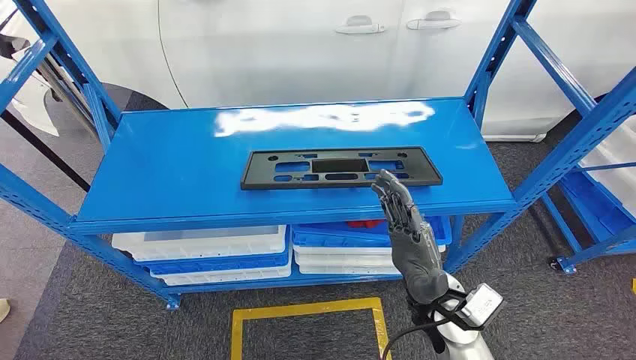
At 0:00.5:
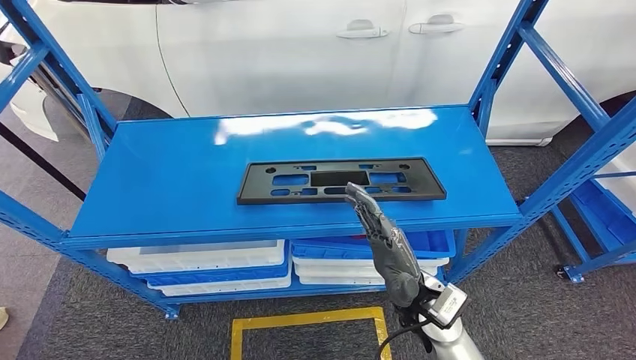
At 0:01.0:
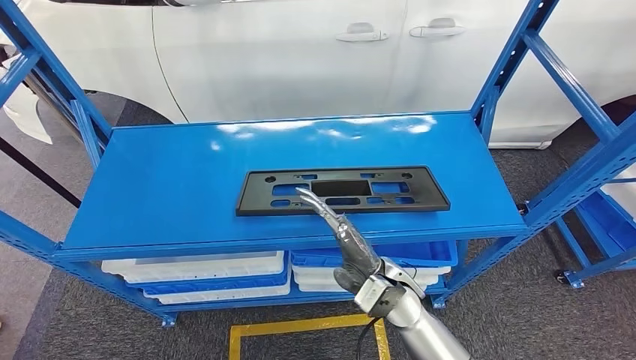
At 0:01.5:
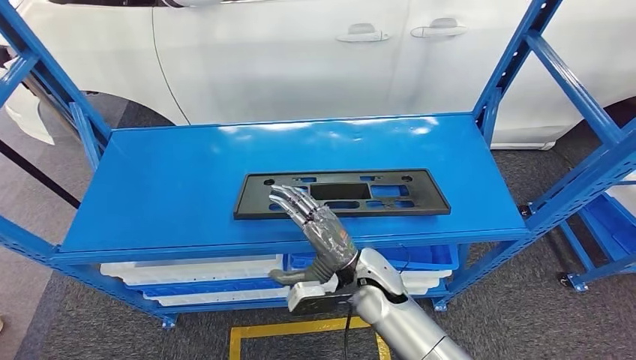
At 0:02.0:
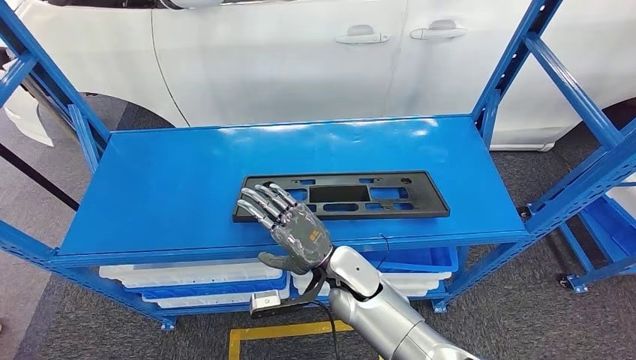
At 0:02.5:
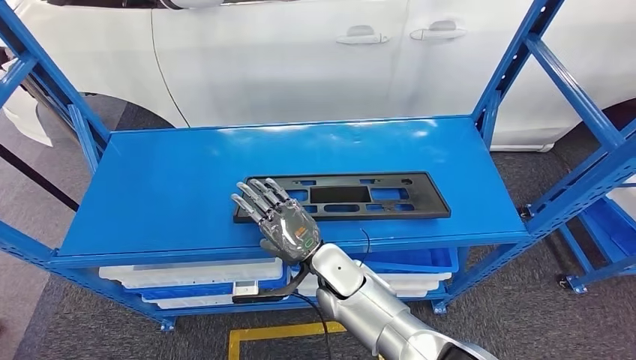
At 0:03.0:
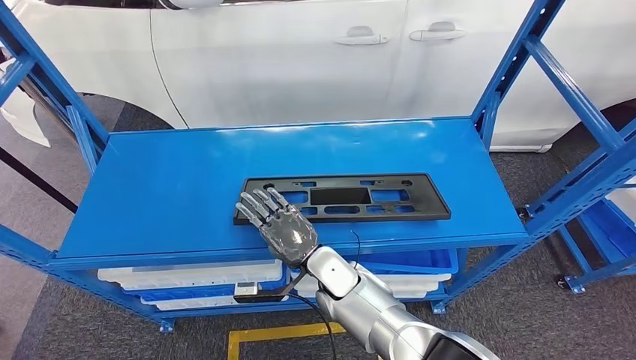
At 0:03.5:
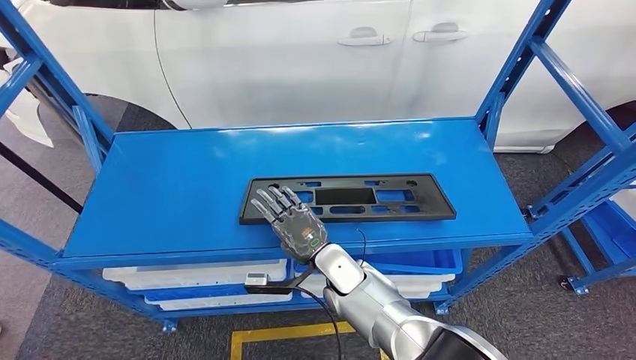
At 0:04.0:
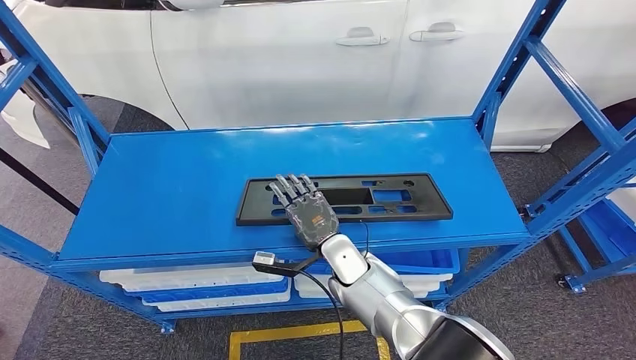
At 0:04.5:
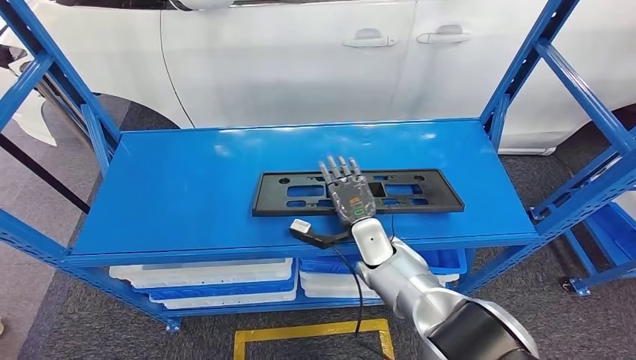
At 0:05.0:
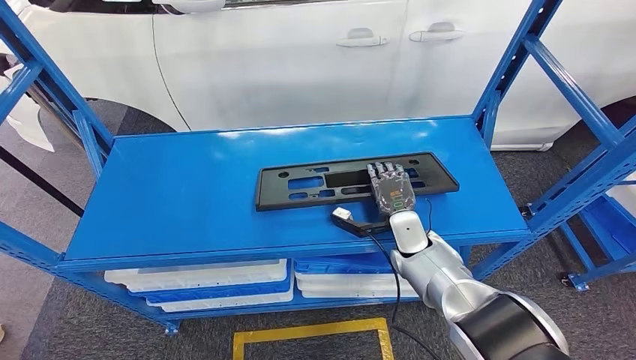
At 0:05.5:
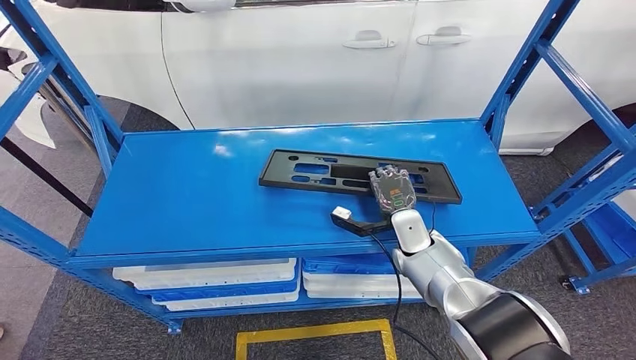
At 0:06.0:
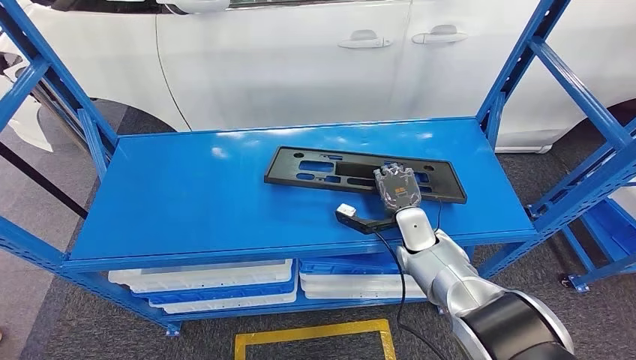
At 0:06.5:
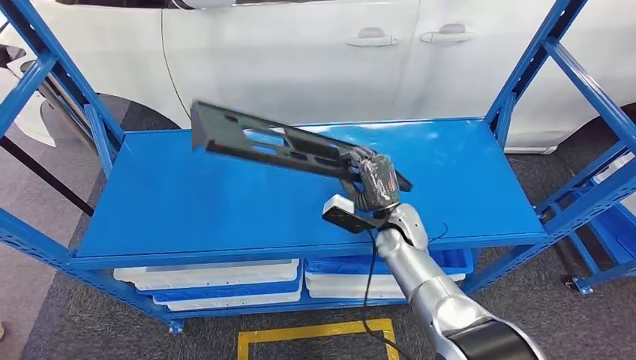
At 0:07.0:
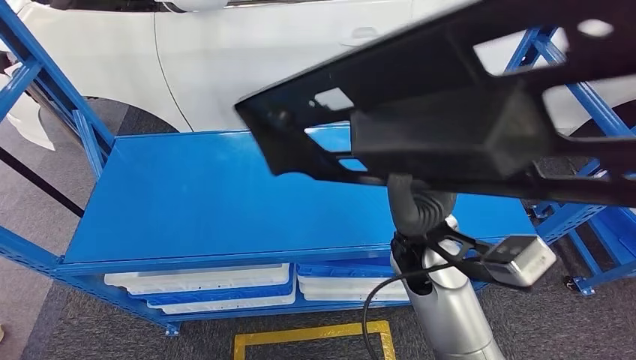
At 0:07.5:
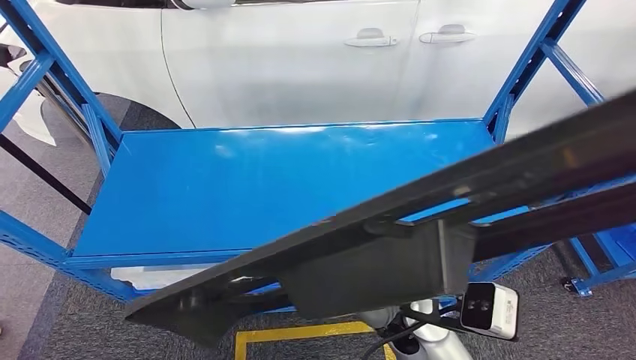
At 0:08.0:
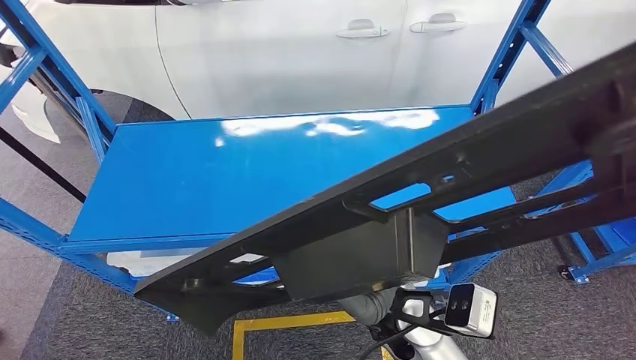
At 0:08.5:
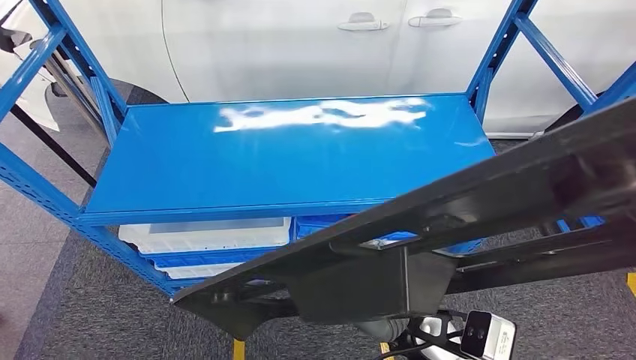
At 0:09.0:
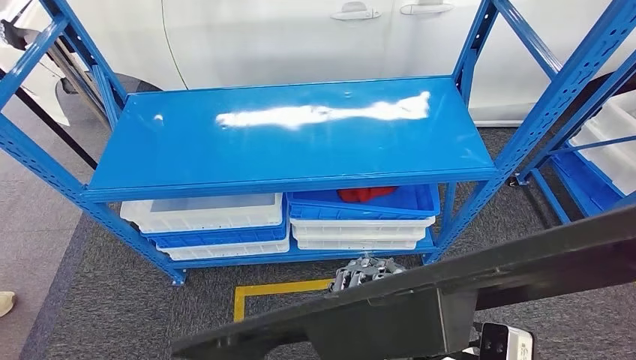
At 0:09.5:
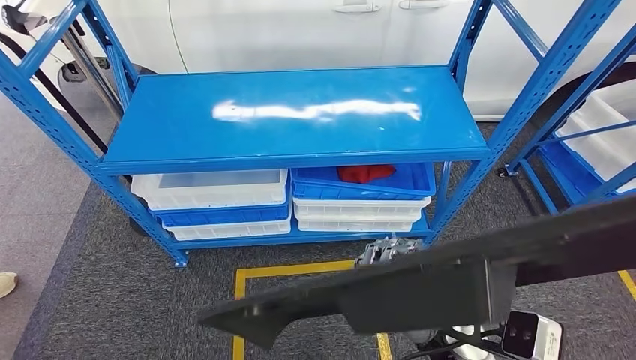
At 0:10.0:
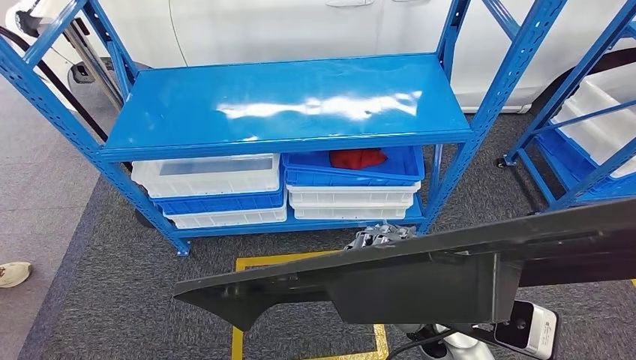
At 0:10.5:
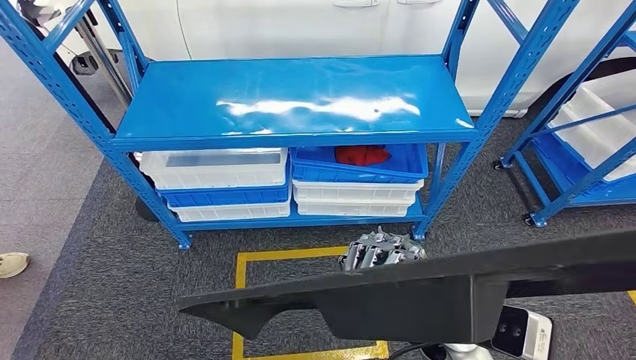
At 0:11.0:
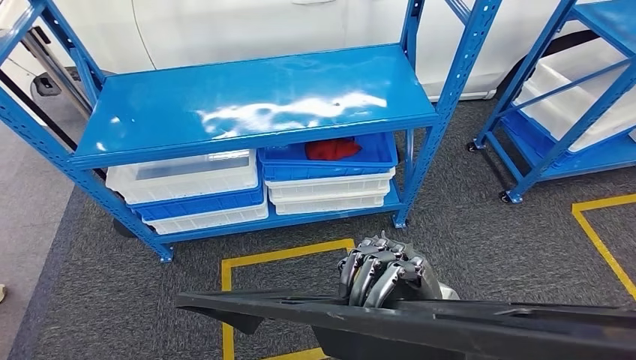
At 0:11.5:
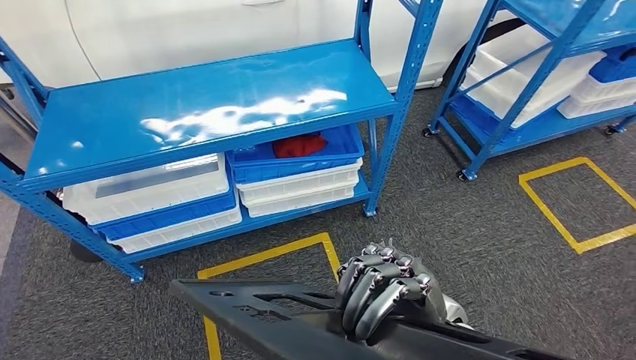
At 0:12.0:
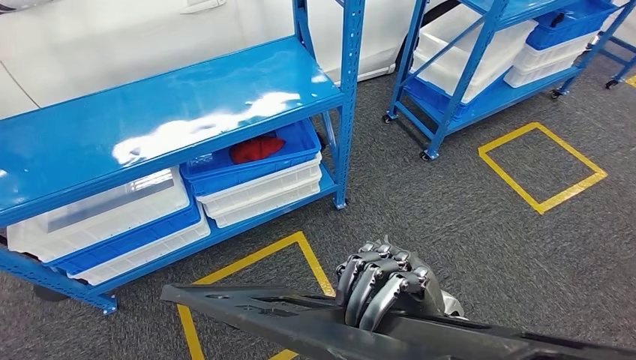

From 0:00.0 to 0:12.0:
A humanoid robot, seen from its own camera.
Step, from 0:00.0 to 0:07.5: Pick up the large material from the shelf.
From 0:02.0 to 0:04.0: The right hand changes place by about 5 cm.

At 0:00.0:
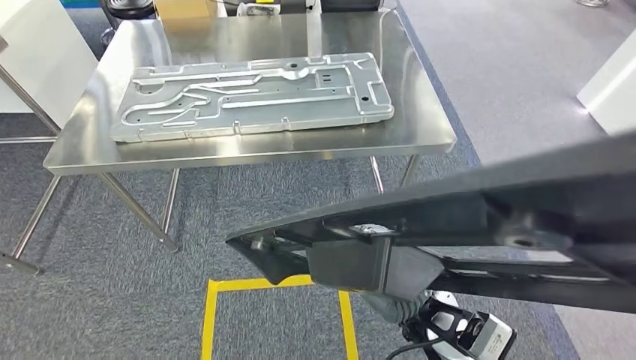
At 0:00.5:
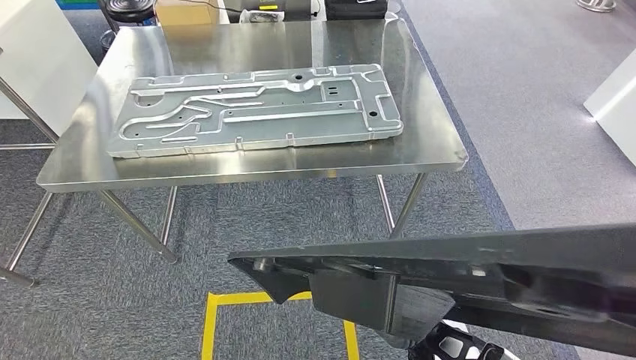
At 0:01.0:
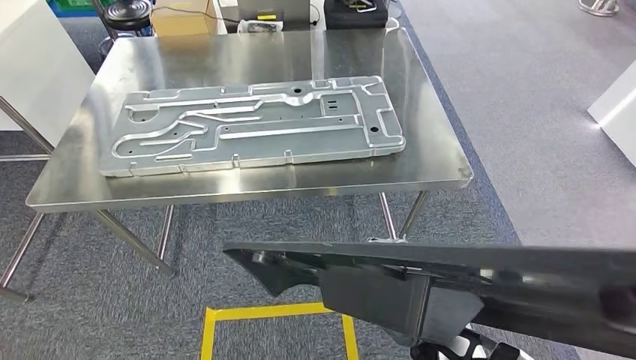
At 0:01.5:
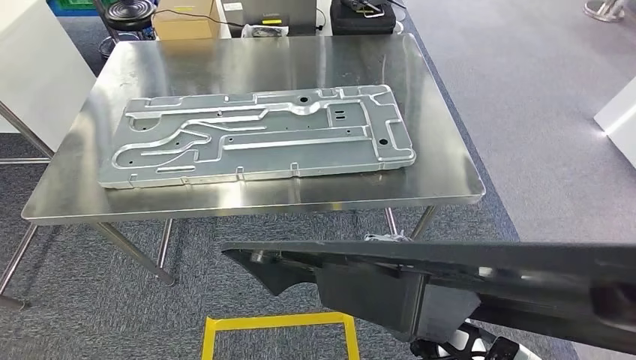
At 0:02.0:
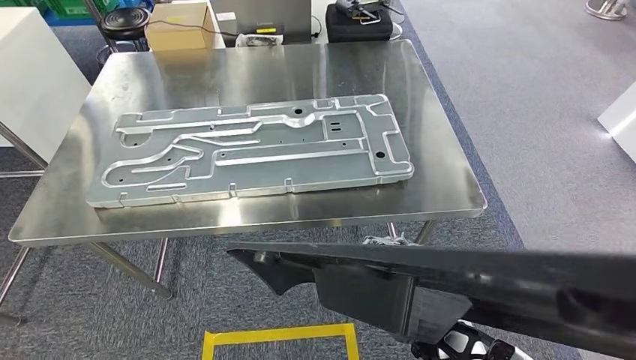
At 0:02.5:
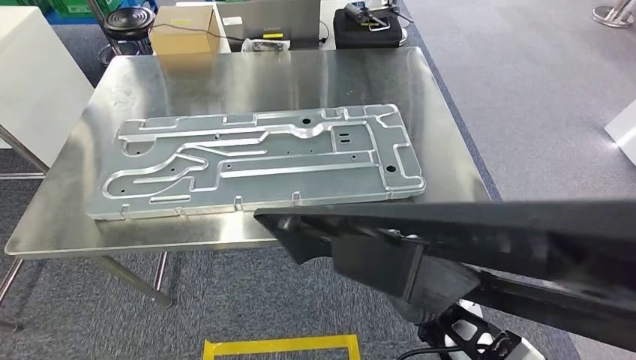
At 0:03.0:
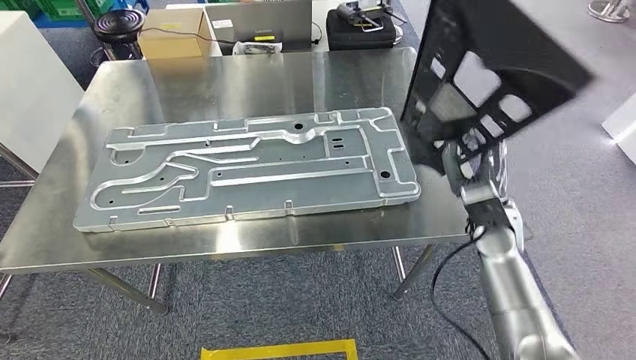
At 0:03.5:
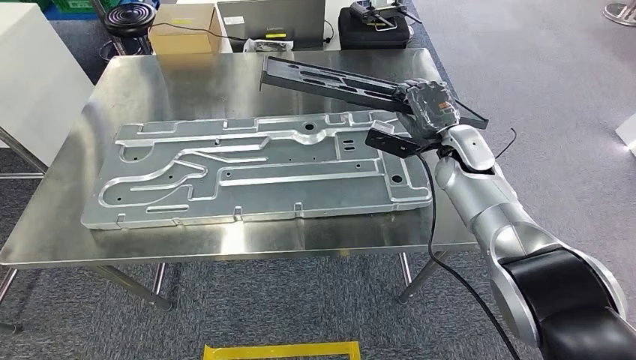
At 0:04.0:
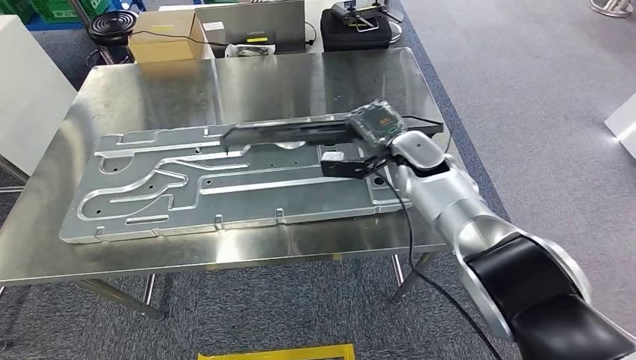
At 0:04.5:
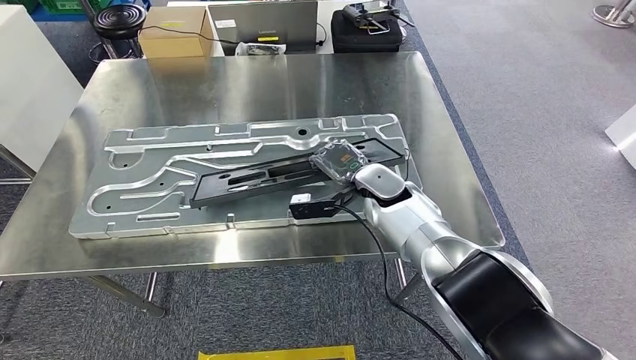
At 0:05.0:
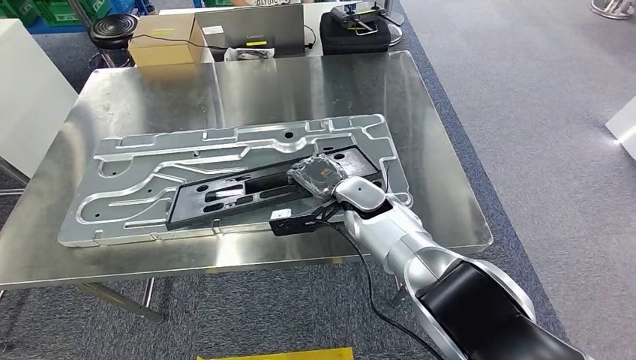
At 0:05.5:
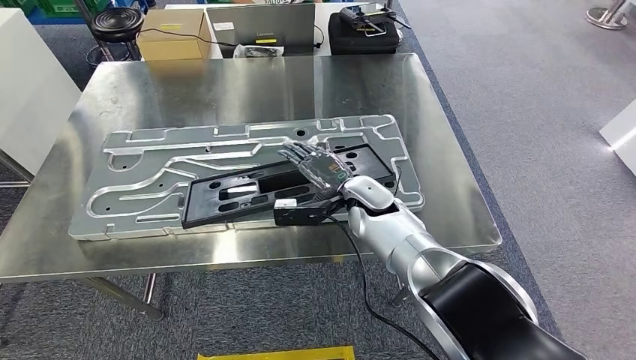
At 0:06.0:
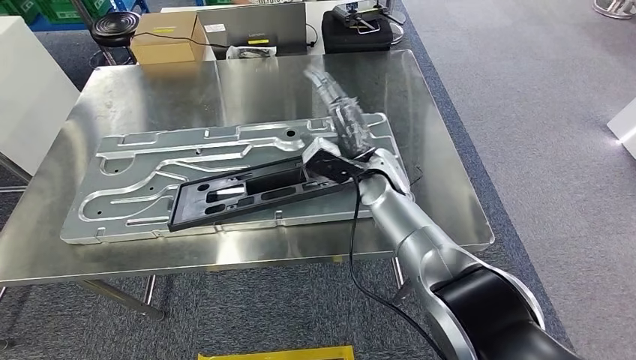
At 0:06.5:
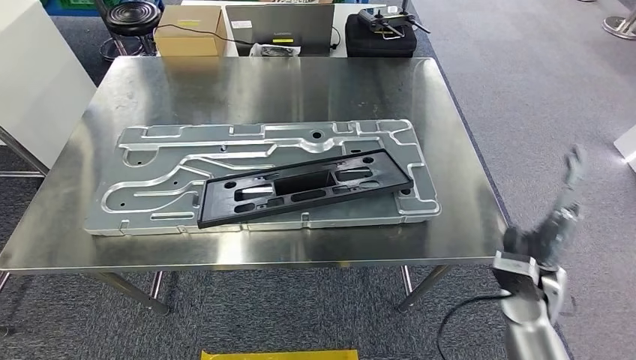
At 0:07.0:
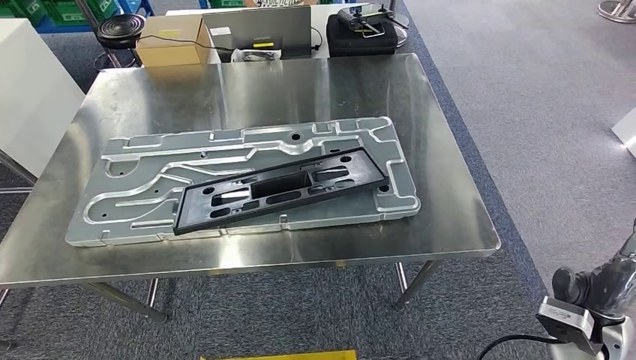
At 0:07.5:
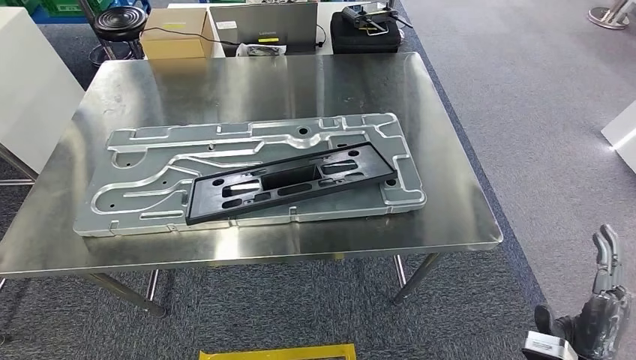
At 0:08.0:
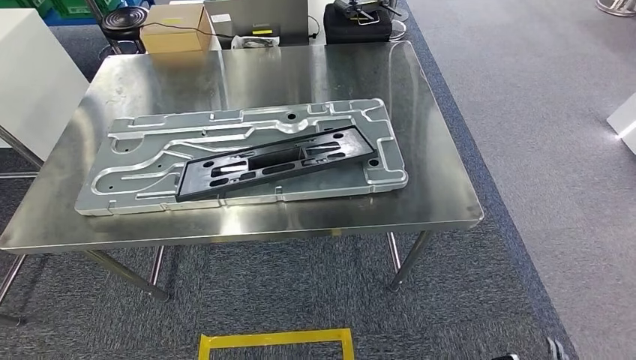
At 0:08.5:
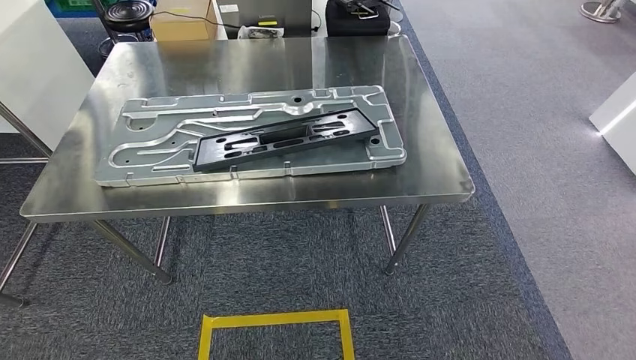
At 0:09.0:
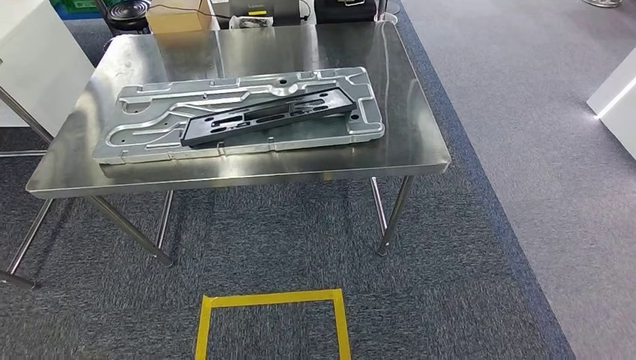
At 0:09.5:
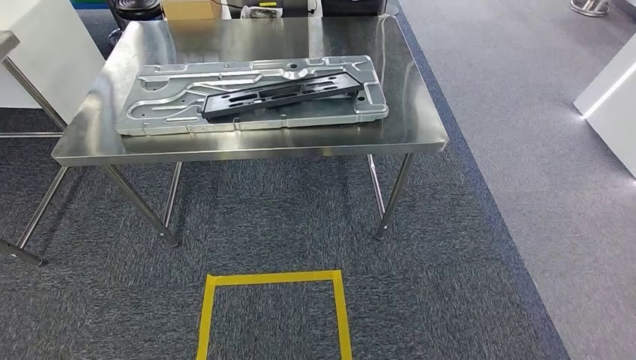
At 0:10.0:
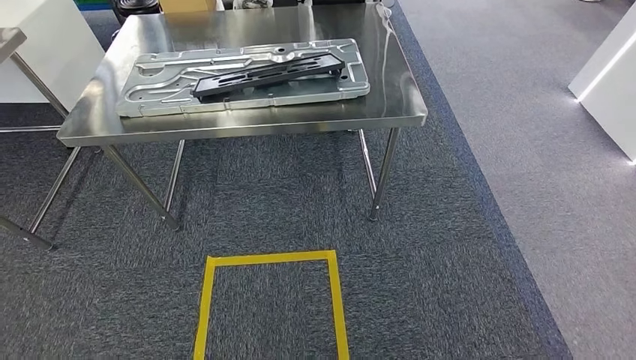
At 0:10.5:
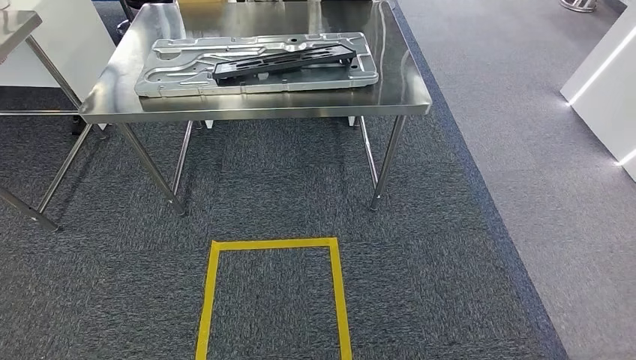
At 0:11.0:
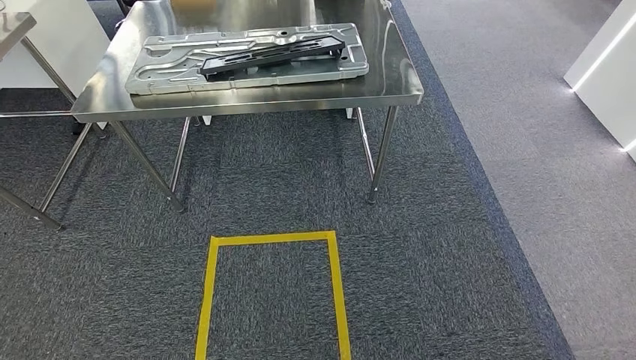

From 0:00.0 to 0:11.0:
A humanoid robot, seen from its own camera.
Step, from 0:00.0 to 0:04.0: Move the large material to the workbench.
Step, from 0:05.0 to 0:07.5: Insert the large material into the corresponding slot on the workbench.
